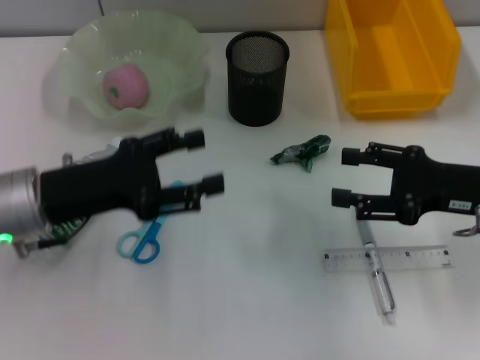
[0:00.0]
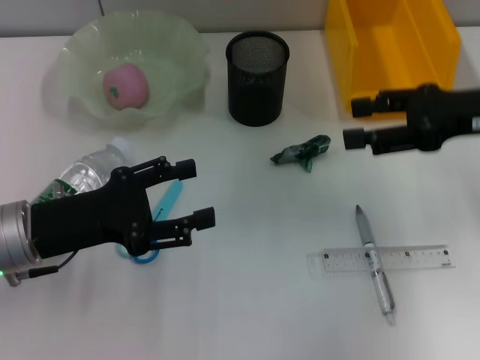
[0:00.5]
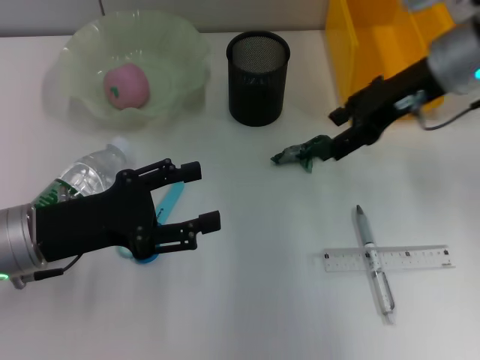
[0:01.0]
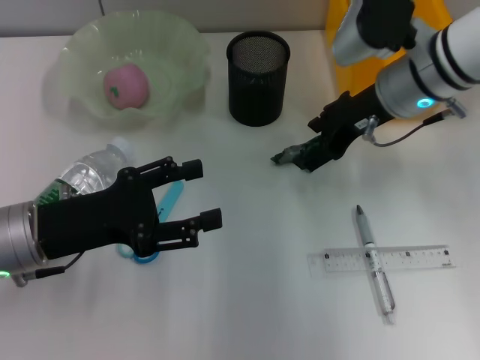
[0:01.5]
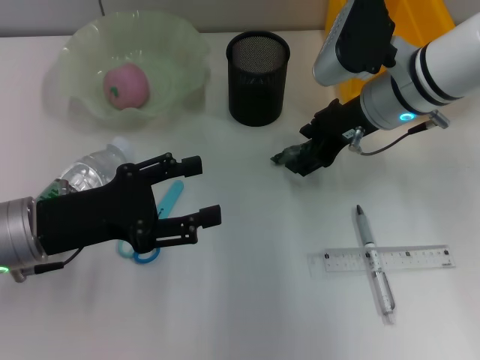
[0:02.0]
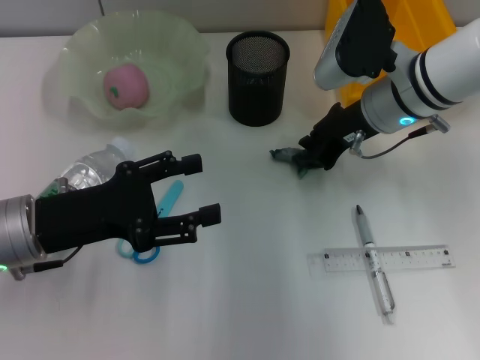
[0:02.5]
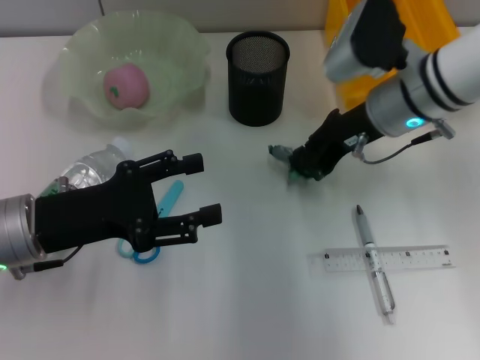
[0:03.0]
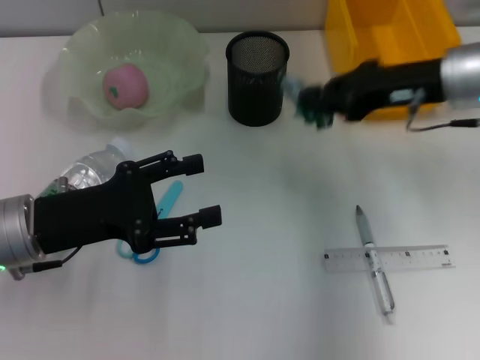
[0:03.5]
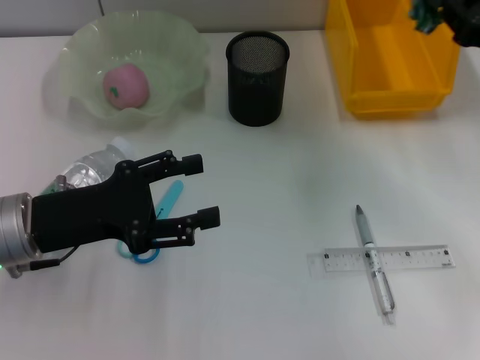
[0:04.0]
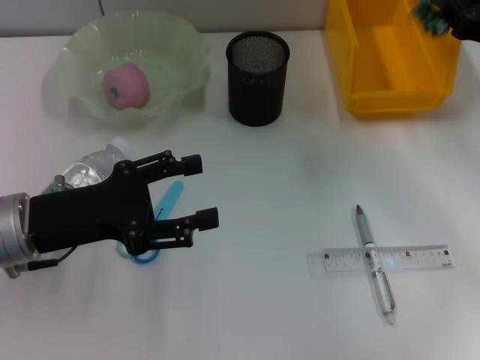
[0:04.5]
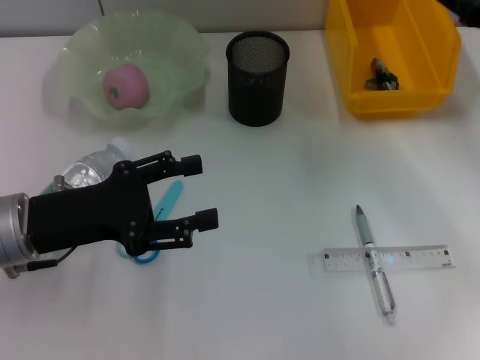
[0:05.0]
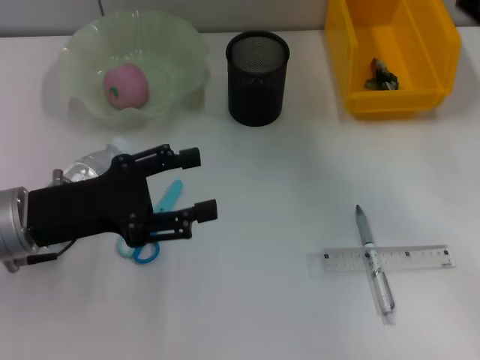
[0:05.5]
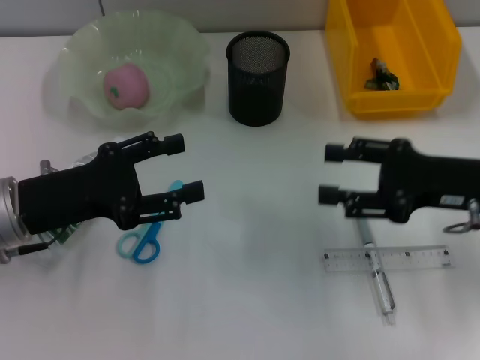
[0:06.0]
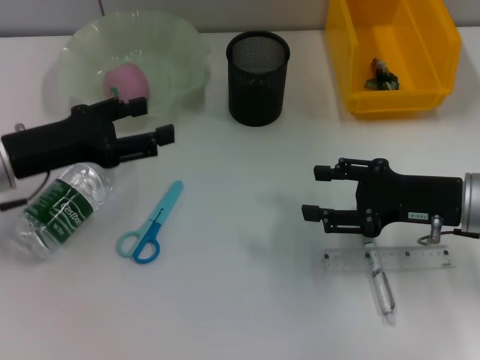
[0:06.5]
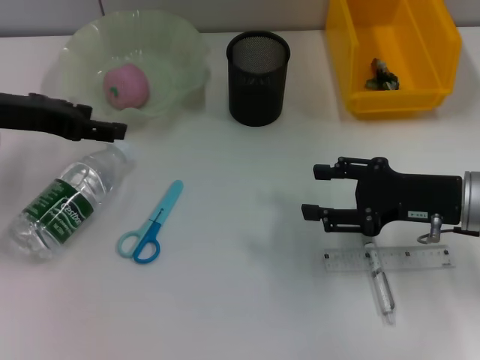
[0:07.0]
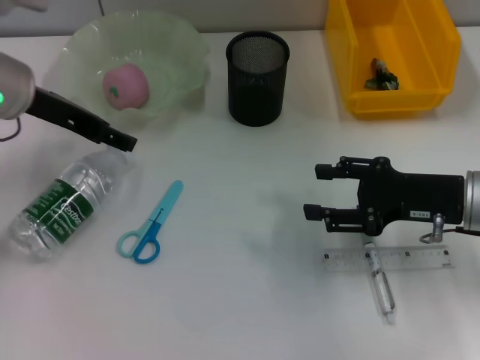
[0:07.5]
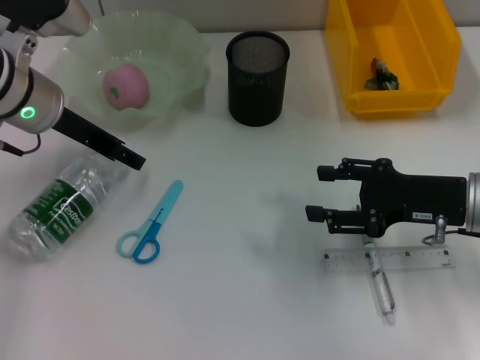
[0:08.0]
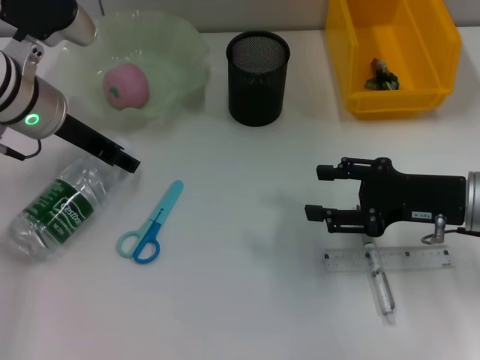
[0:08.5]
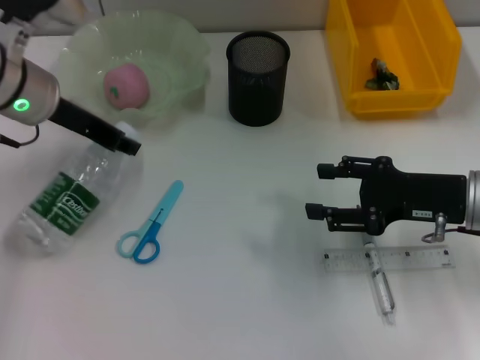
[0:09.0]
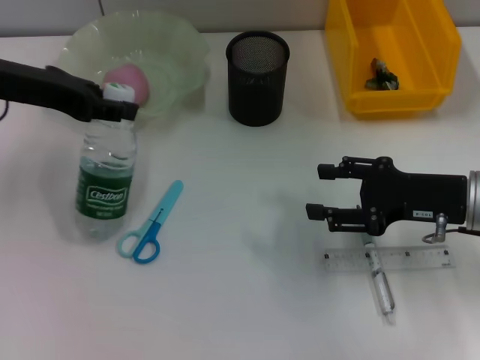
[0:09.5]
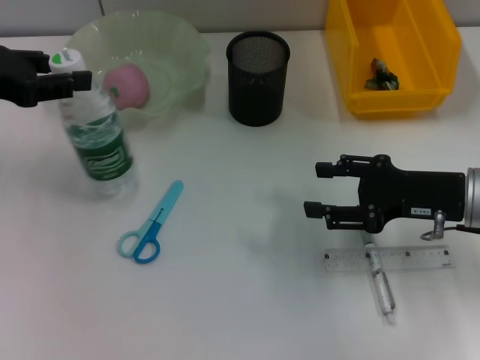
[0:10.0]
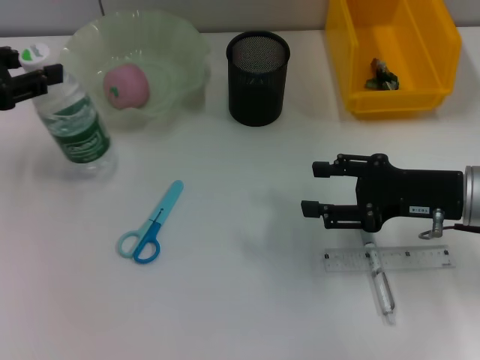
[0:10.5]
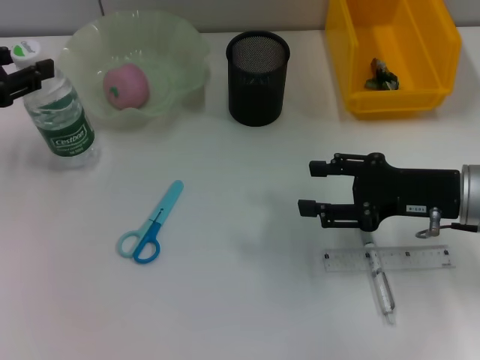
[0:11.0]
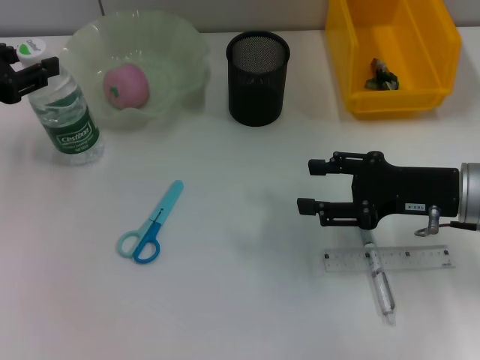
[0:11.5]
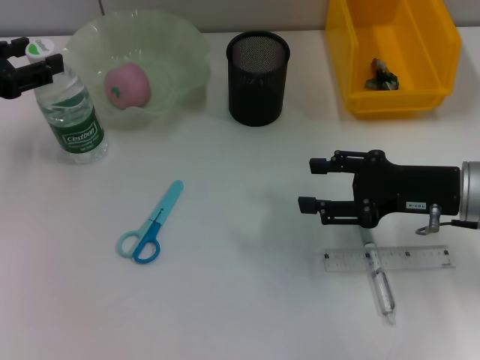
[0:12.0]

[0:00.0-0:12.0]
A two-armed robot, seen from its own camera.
Step, 0:00.0 to 0:02.5: Grab the plastic with the right hand.
Step, 0:03.0 to 0:04.5: Place the plastic into the trash can with the right hand.
Step, 0:05.0 to 0:08.5: Grab the water bottle with the left hand.
Step, 0:09.0 to 0:11.5: Place the water bottle on the table with the left hand.
0:00.0 to 0:02.0: The right gripper is displaced to the left and forward by roughly 15 cm.
0:02.0 to 0:04.0: The right gripper heads to the right, covering roughly 15 cm, and closes.
0:04.0 to 0:06.0: The right gripper is displaced backward by some 5 cm, and opens.
0:06.0 to 0:08.0: The left gripper is displaced forward and upward by some 15 cm.
0:08.0 to 0:10.0: The left gripper goes approximately 10 cm to the left, backward and upward, and closes up.
0:10.0 to 0:12.0: The left gripper ends up some 5 cm from where it was.

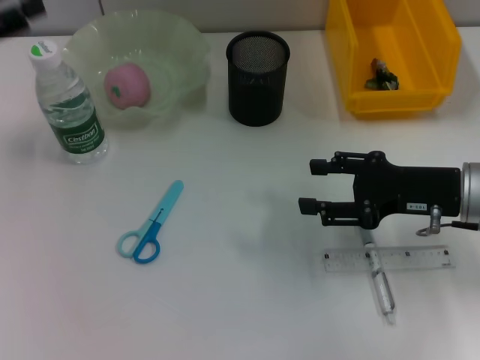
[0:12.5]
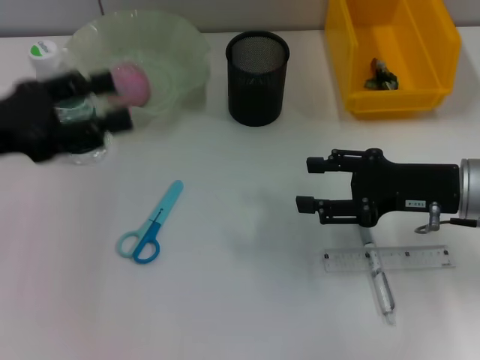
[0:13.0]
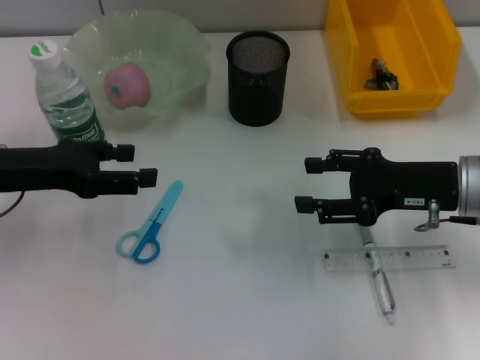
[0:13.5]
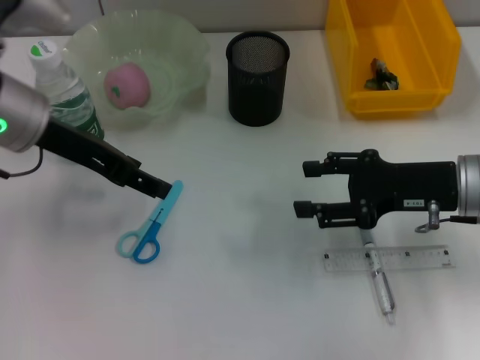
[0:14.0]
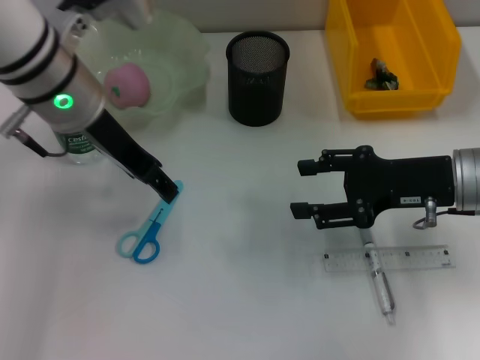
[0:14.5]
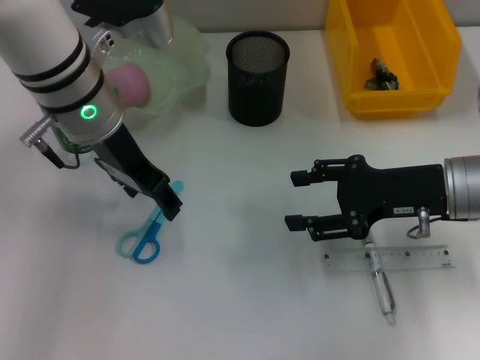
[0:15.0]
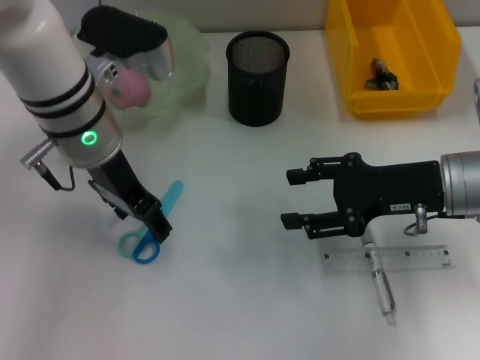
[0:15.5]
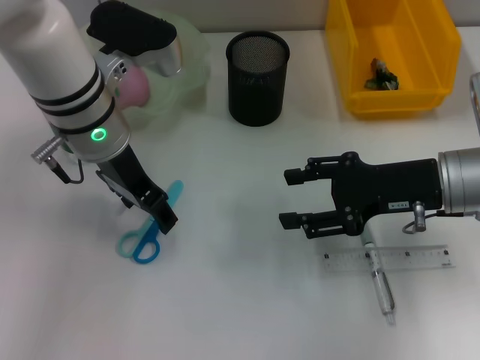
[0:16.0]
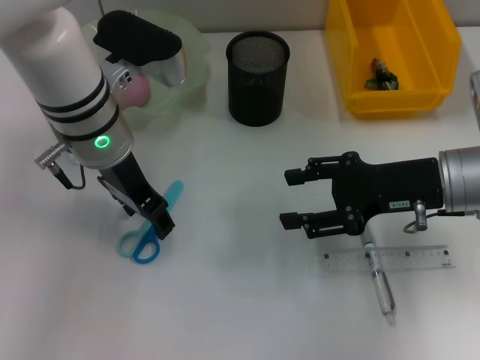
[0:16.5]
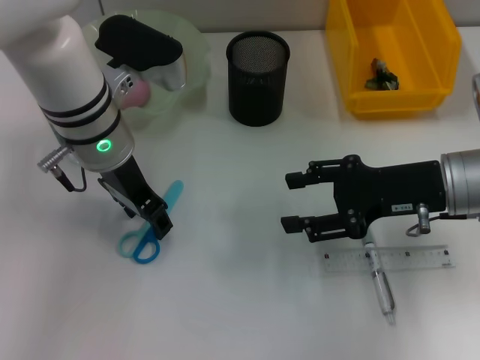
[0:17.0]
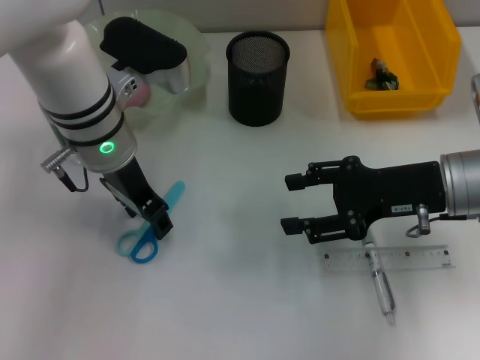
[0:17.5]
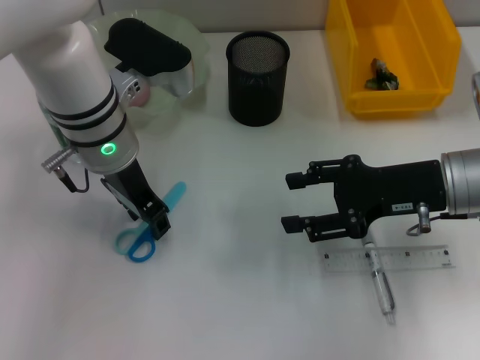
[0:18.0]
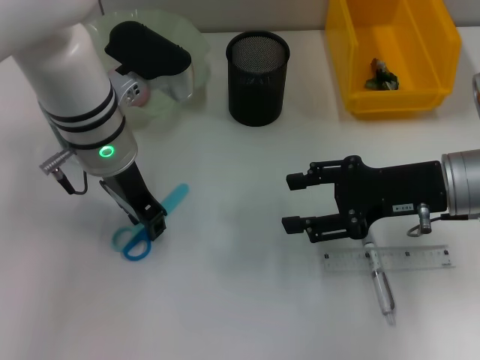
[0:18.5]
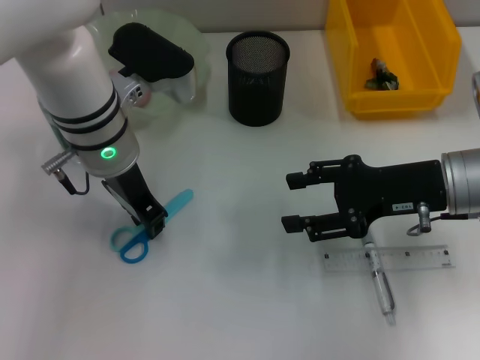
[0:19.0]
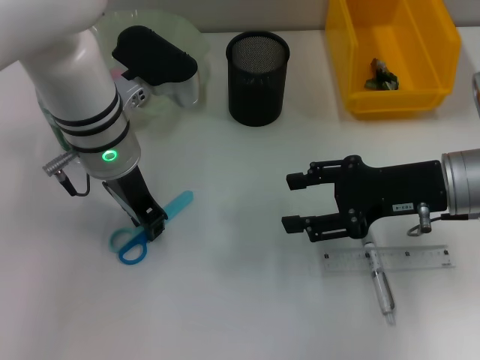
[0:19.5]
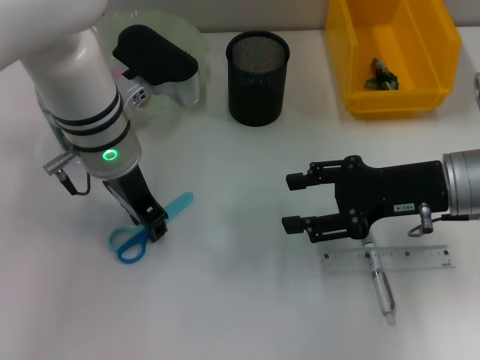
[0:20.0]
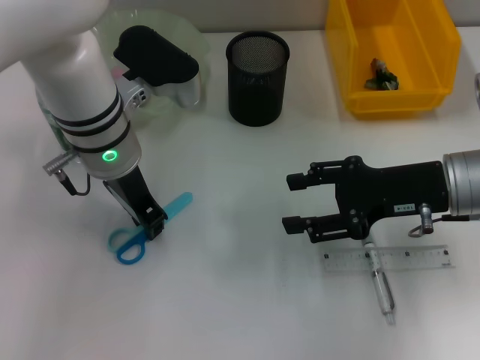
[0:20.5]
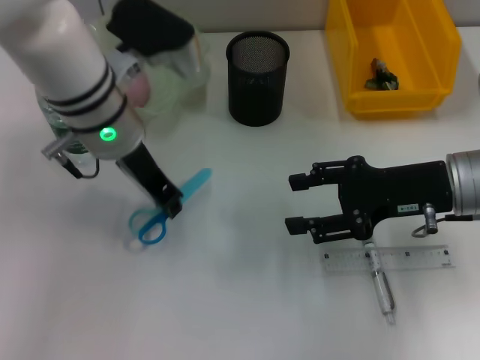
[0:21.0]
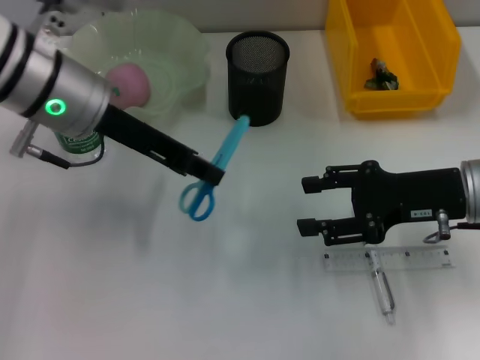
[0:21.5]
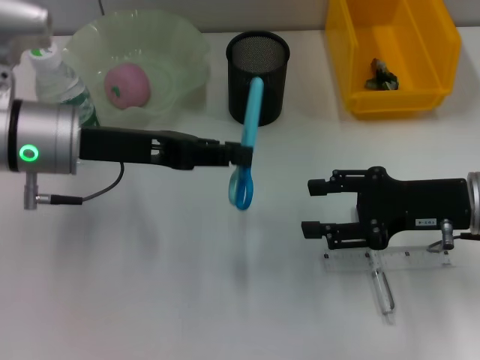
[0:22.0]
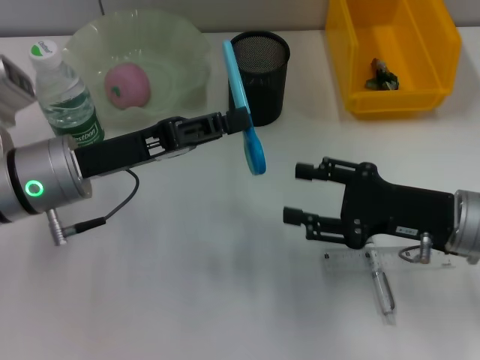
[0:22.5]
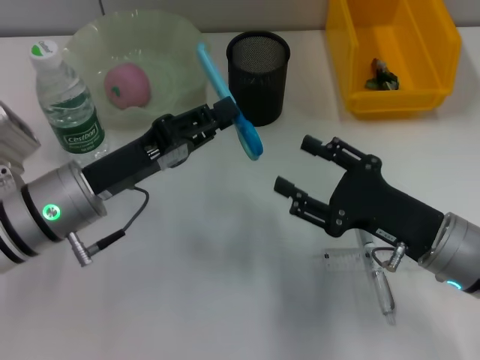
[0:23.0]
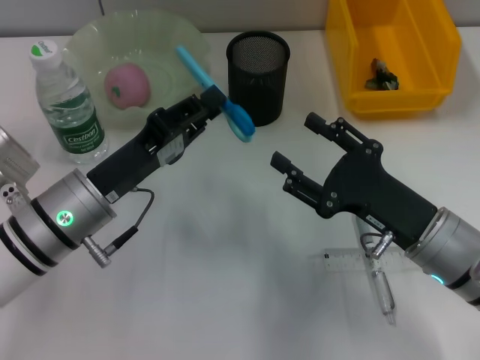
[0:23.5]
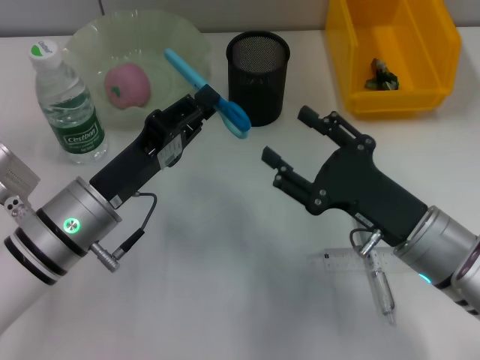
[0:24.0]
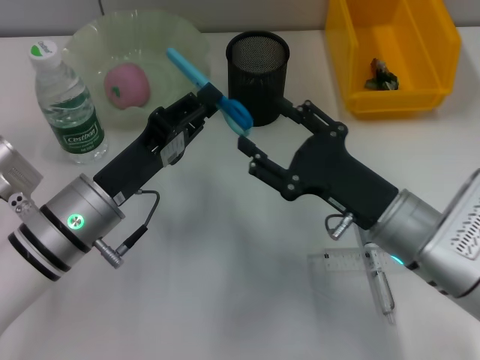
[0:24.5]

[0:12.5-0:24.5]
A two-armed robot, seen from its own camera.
Step, 0:12.5 to 0:18.5: Grab the blue scissors with the left hand.
0:12.5 to 0:14.5: The left gripper shifts some 20 cm to the right.
0:14.5 to 0:16.5: The left gripper moves about 5 cm.
0:16.5 to 0:18.5: The left gripper closes up.
0:18.5 to 0:20.5: Neither gripper changes place.
0:20.5 to 0:22.5: The left gripper travels to the left and backward by approximately 10 cm; the right gripper shifts by about 5 cm.
0:22.5 to 0:24.5: The left gripper heads downward, covering some 5 cm; the right gripper goes approximately 5 cm to the left.

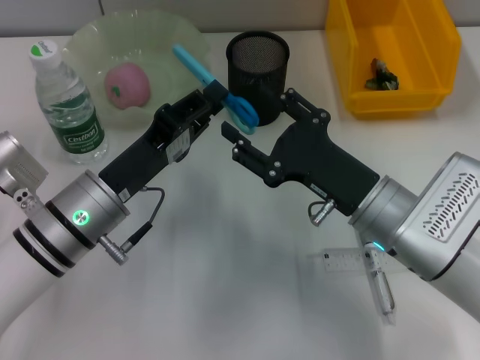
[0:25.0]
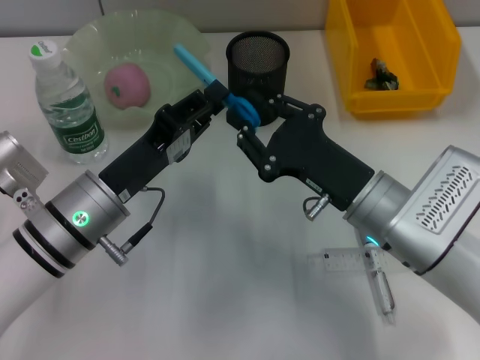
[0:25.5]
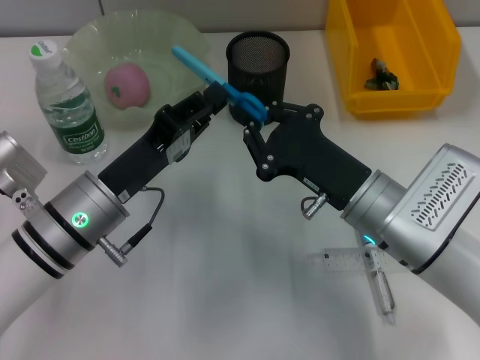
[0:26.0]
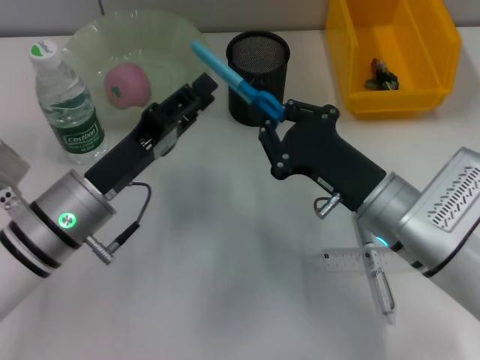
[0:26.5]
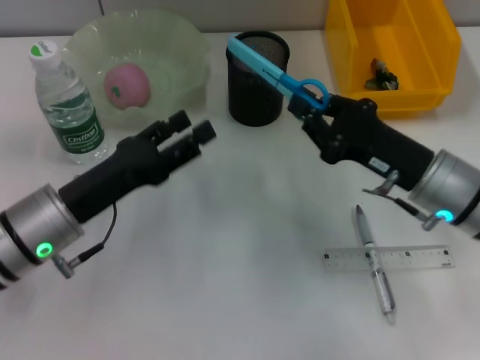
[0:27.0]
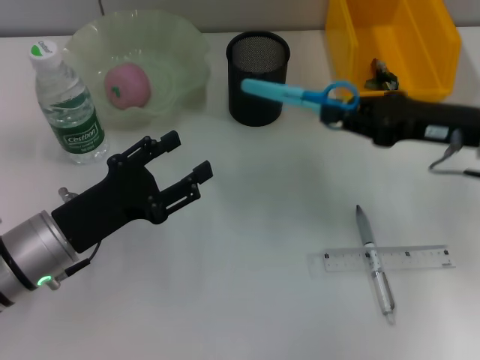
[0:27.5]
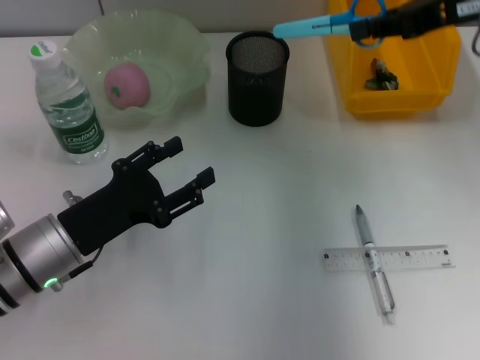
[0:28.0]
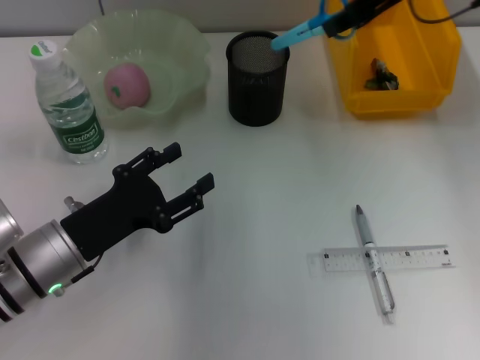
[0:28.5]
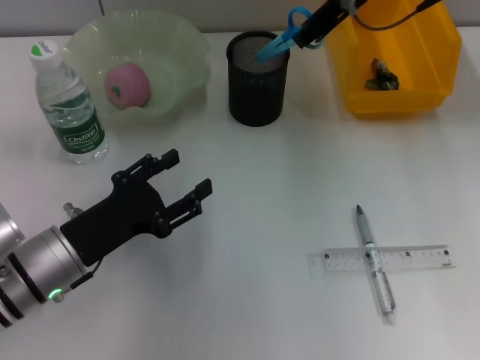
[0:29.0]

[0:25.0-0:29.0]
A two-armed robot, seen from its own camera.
0:25.0 to 0:27.0: The right gripper goes approximately 5 cm to the right, and closes, while the left gripper opens its fingers.
0:27.0 to 0:29.0: The right gripper heads upward and forward, covering roughly 25 cm.
